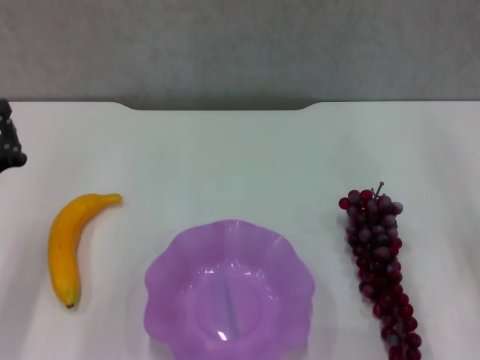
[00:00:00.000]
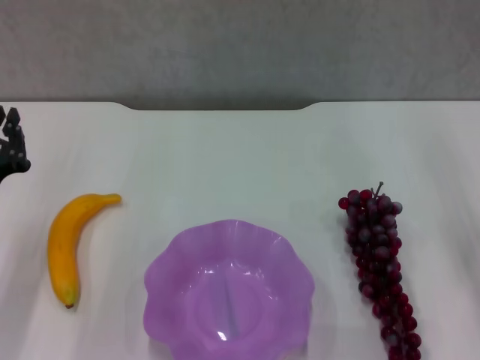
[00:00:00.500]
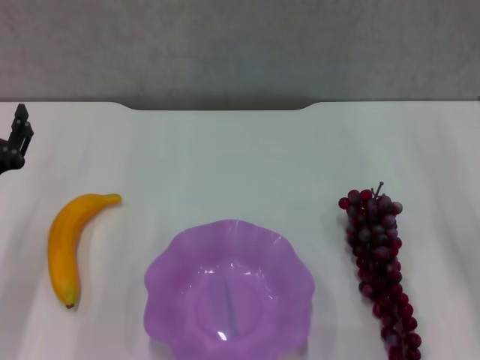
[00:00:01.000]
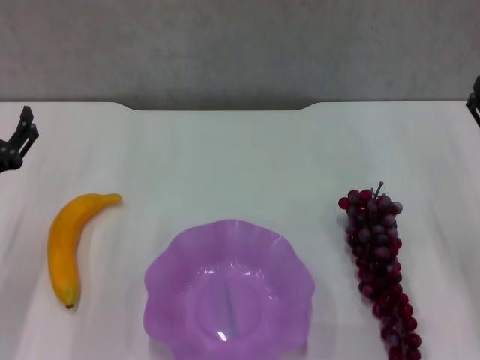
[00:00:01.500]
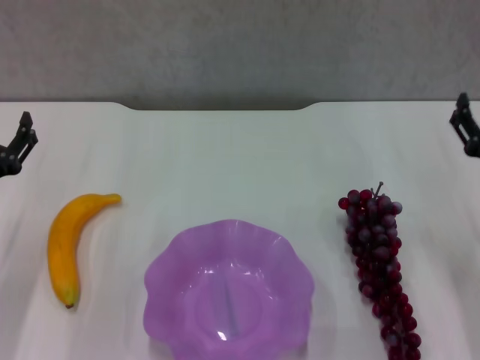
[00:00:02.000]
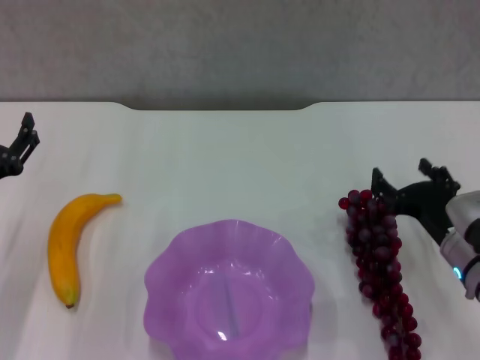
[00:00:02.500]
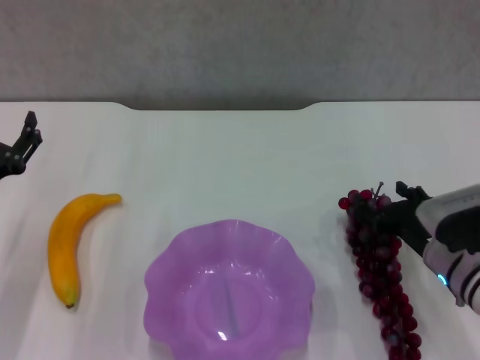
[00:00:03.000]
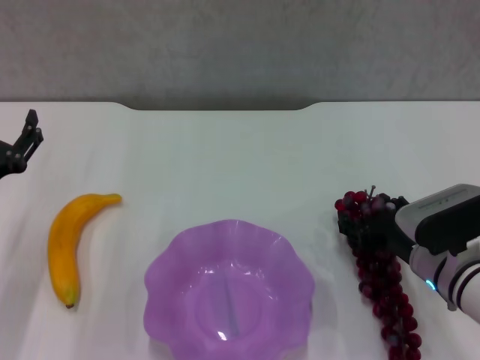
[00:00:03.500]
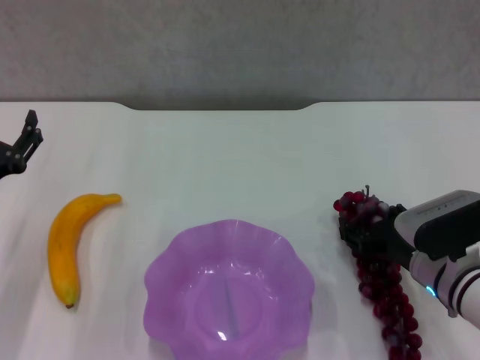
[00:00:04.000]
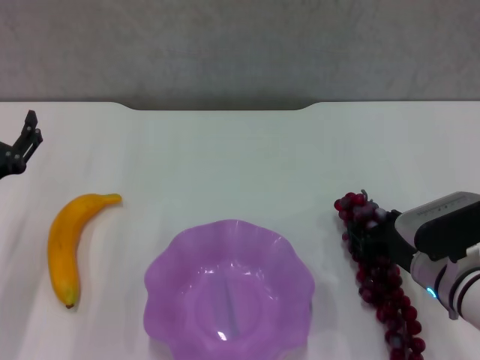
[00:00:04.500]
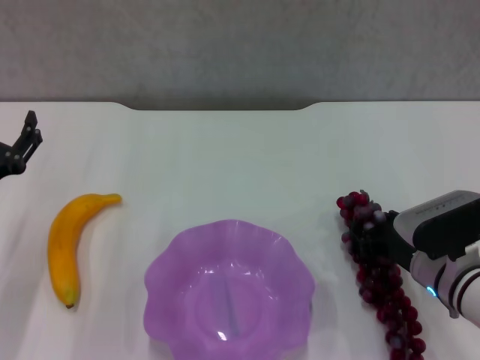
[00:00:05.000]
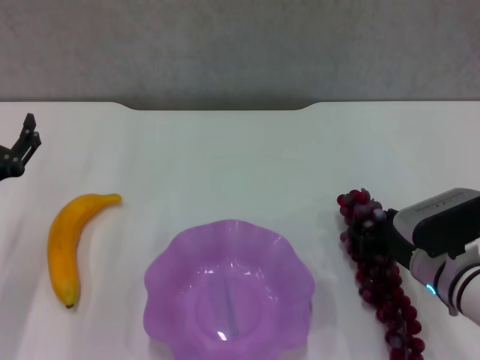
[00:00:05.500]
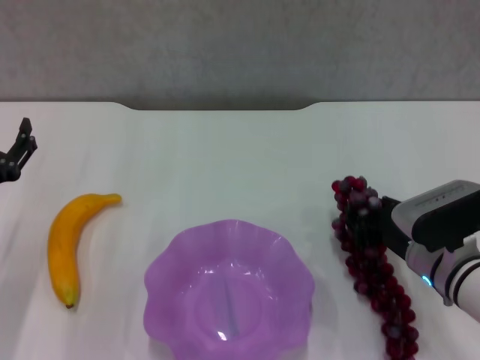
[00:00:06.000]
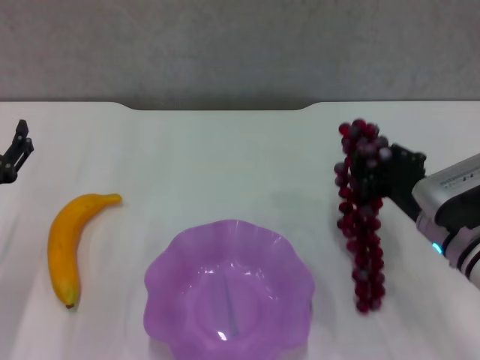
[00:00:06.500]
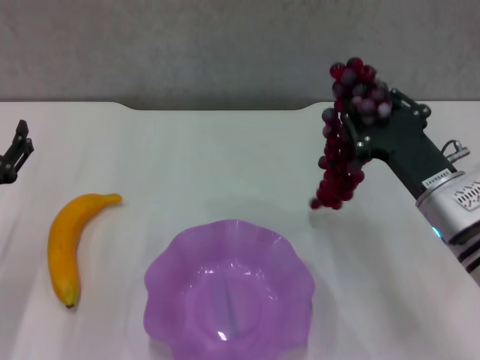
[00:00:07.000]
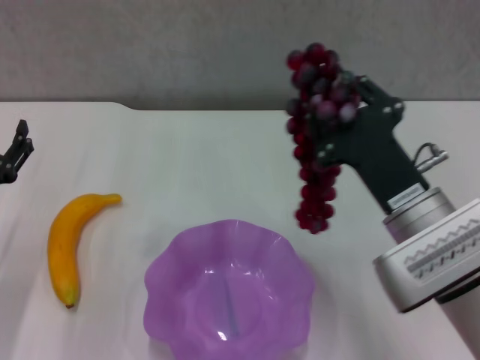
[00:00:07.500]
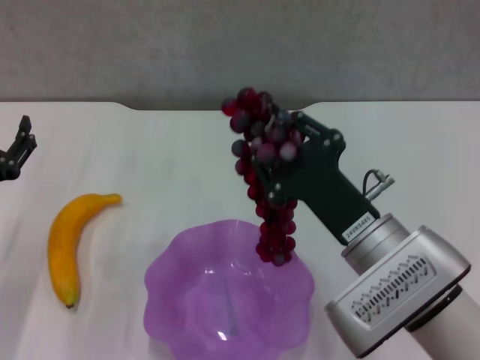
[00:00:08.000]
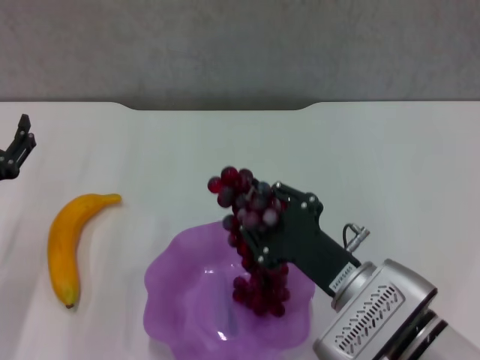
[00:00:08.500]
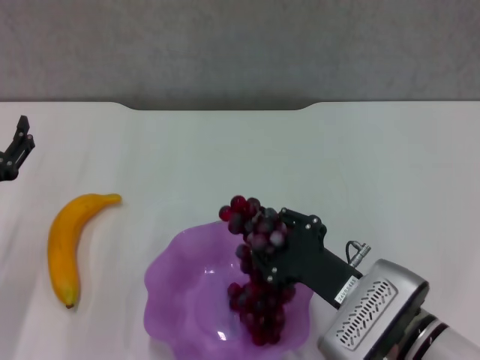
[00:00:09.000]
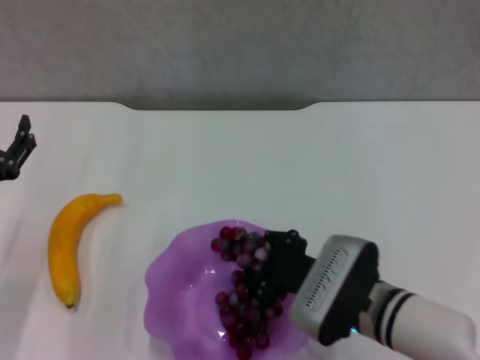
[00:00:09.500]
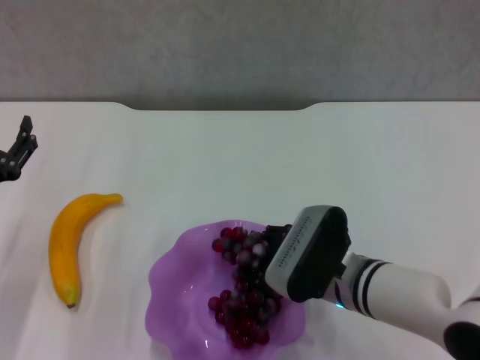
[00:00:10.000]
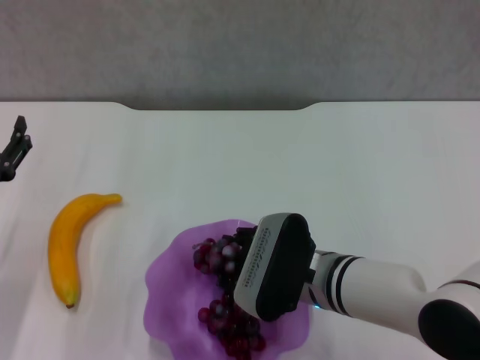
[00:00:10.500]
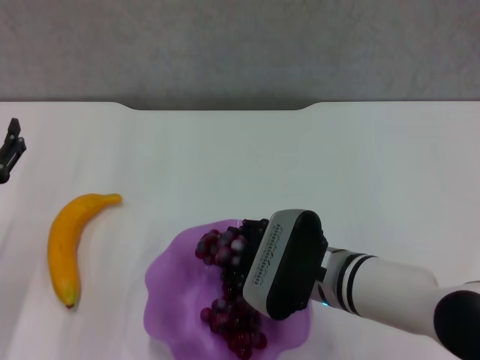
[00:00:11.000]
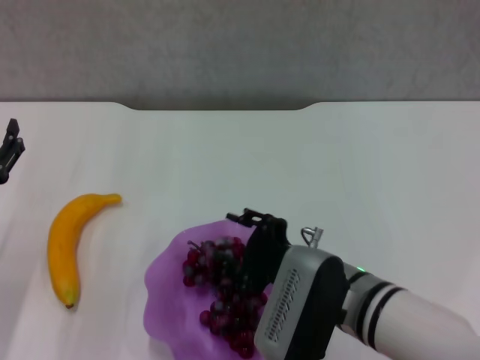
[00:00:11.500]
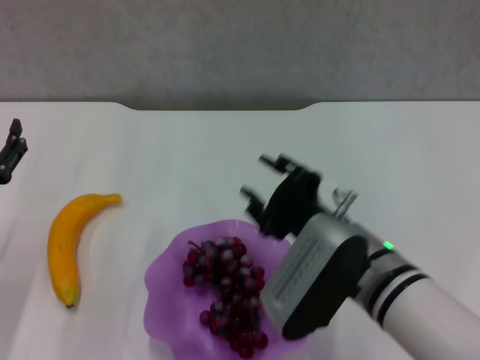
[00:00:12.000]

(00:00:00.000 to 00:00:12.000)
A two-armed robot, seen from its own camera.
Step, 00:00:00.000 - 00:00:04.000: Grasp the grape with right gripper.
Step, 00:00:04.500 - 00:00:11.500: Place the grape in the purple plate with right gripper.
00:00:00.000 - 00:00:02.000: The left gripper opens up. The right gripper opens its fingers.
00:00:02.000 - 00:00:04.000: The right gripper heads downward and to the left, covering approximately 10 cm.
00:00:04.000 - 00:00:06.000: The right gripper closes up.
00:00:06.000 - 00:00:08.000: The right gripper moves to the left, upward and backward, some 15 cm.
00:00:08.000 - 00:00:10.000: The right gripper heads downward, covering approximately 5 cm.
00:00:10.000 - 00:00:12.000: The right gripper heads upward, covering approximately 5 cm.

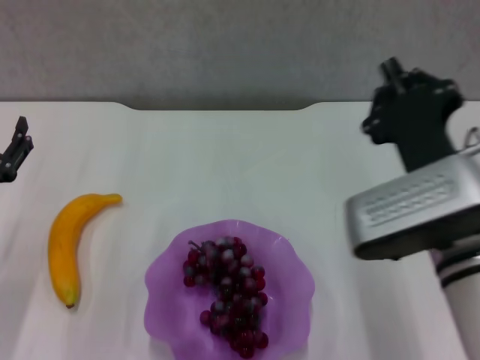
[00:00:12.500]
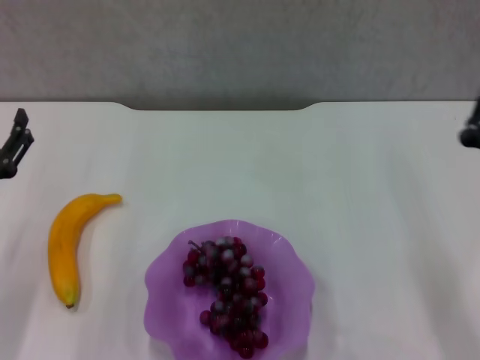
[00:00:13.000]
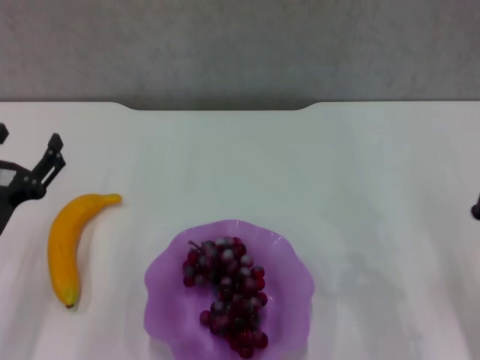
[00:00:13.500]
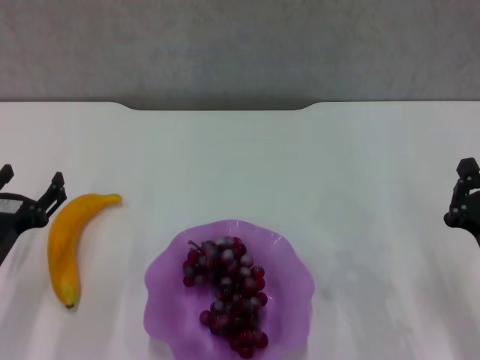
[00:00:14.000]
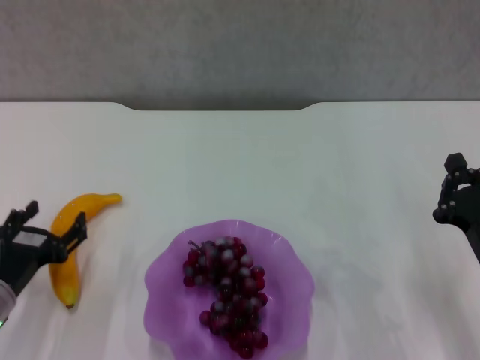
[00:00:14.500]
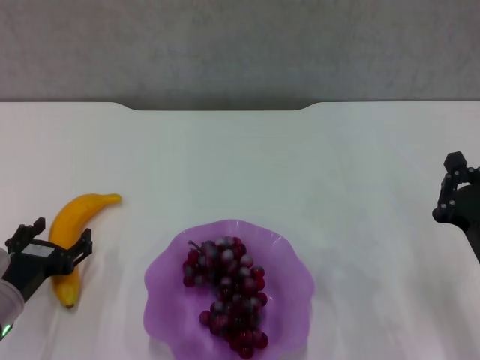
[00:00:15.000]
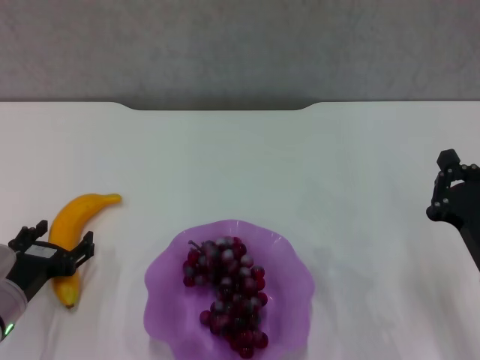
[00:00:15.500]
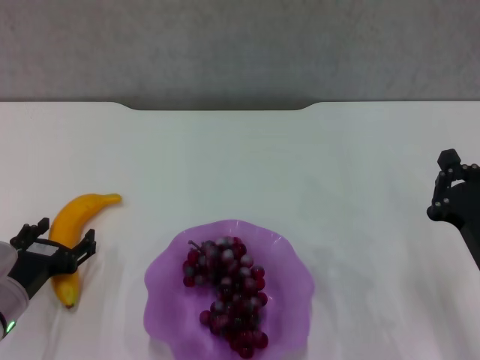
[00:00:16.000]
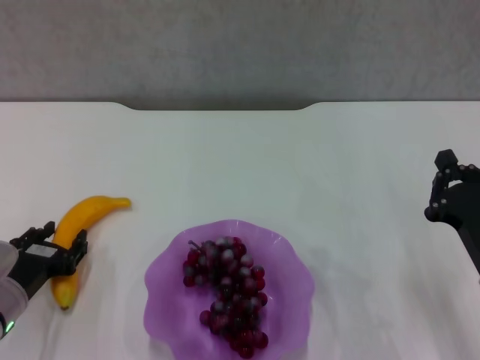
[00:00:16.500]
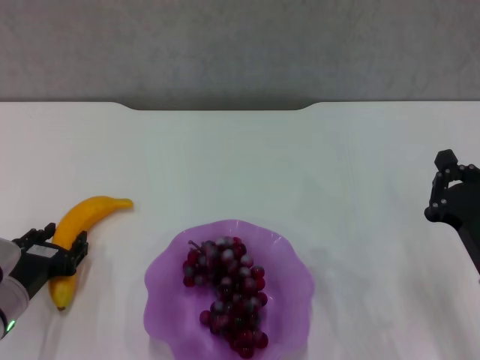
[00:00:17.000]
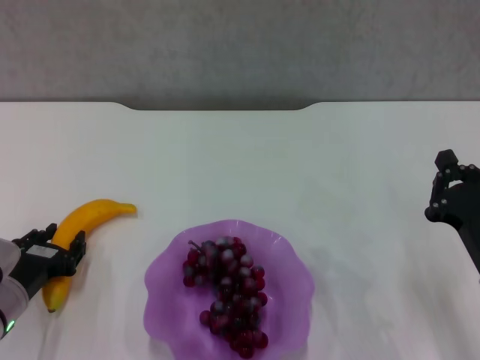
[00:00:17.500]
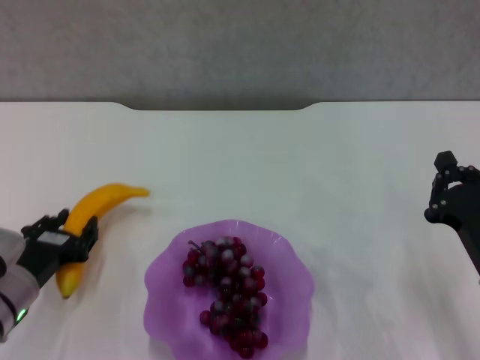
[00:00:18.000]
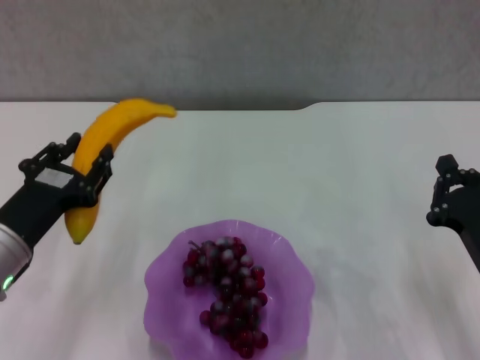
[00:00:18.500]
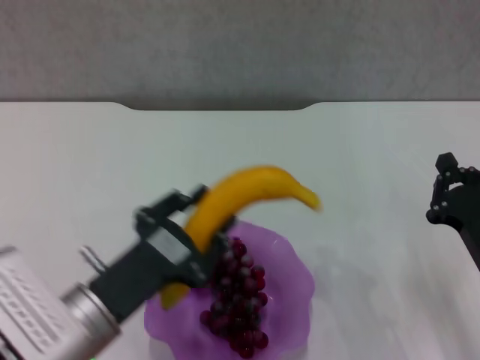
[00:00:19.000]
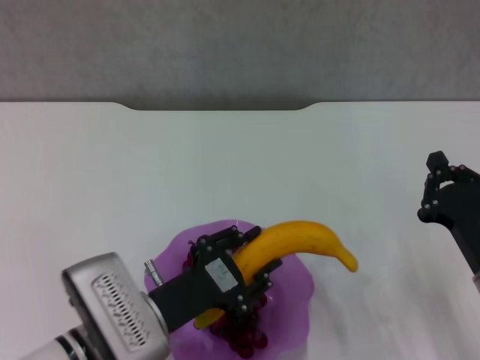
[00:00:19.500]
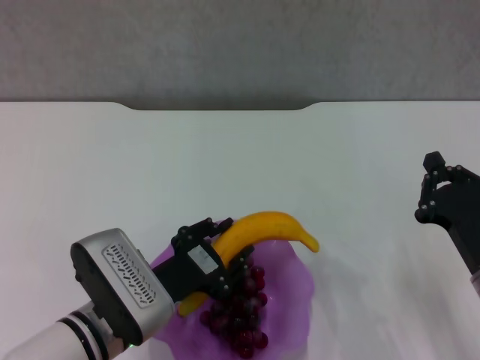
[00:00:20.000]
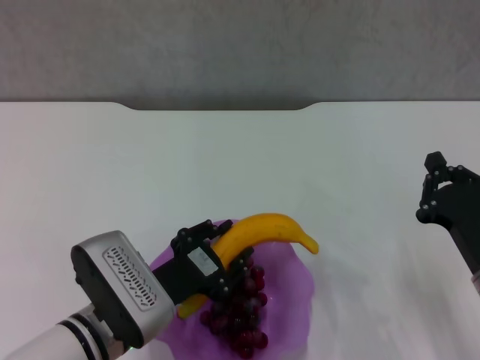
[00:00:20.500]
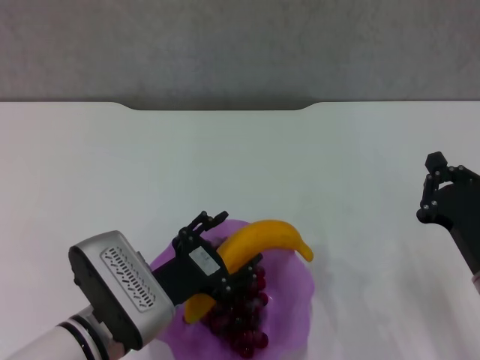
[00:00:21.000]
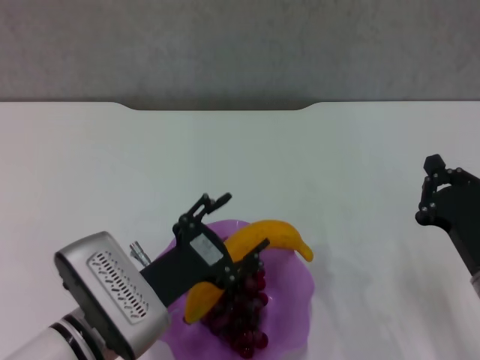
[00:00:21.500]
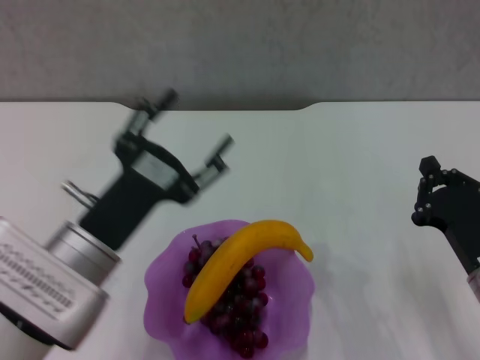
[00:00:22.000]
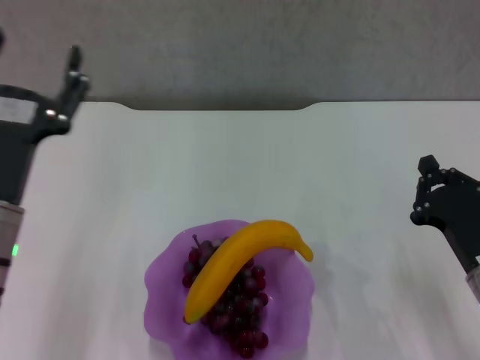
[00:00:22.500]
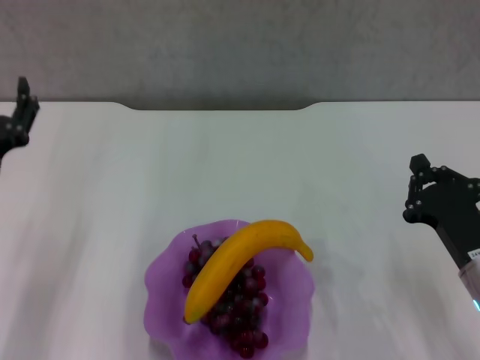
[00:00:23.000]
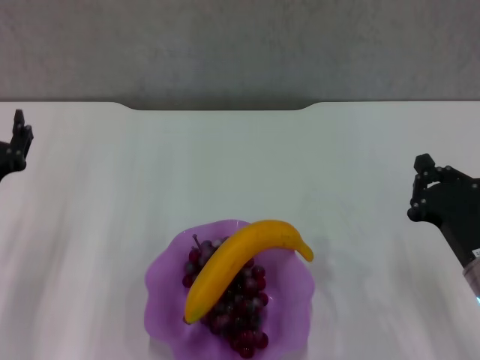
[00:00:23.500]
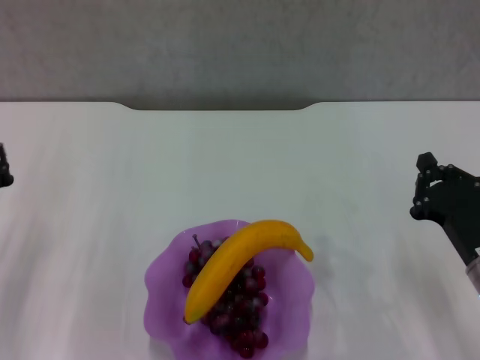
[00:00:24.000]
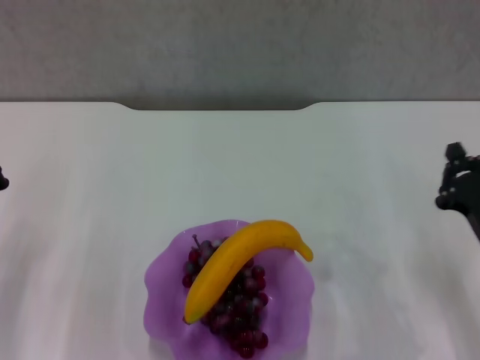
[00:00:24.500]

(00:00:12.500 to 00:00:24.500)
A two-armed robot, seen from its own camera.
Step, 00:00:12.500 - 00:00:16.500: Grasp the banana with left gripper.
Step, 00:00:17.000 - 00:00:21.500: Place the grape in the purple plate with left gripper.
00:00:12.500 - 00:00:14.500: The left gripper heads downward, covering approximately 5 cm, while the right gripper shifts roughly 15 cm to the right and downward.
00:00:14.500 - 00:00:16.500: The grippers stay close to where they were, moving slightly.
00:00:16.500 - 00:00:18.500: The left gripper shifts roughly 10 cm upward.
00:00:18.500 - 00:00:20.500: The left gripper heads to the right, covering about 10 cm.
00:00:20.500 - 00:00:22.500: The left gripper goes some 10 cm upward and to the left, and opens up.
00:00:22.500 - 00:00:24.500: The left gripper is displaced to the left and downward by approximately 10 cm, and closes.
